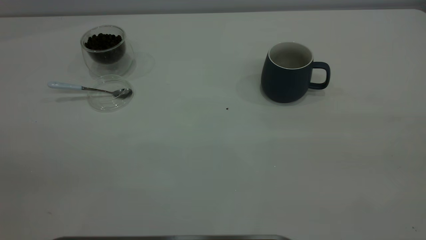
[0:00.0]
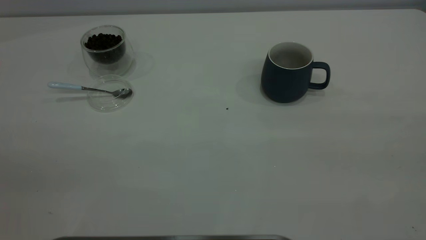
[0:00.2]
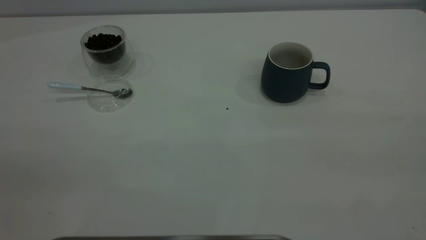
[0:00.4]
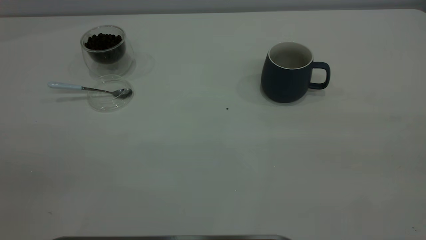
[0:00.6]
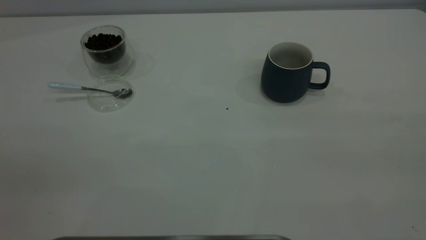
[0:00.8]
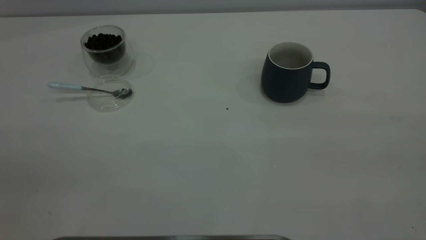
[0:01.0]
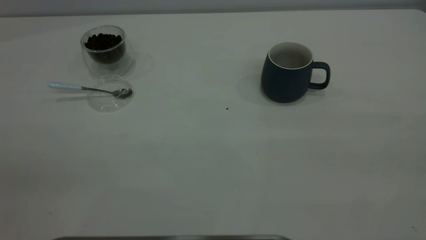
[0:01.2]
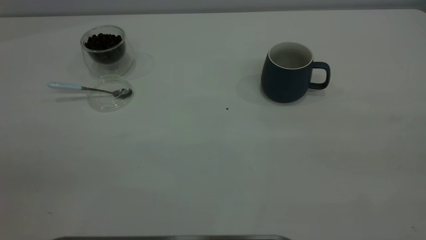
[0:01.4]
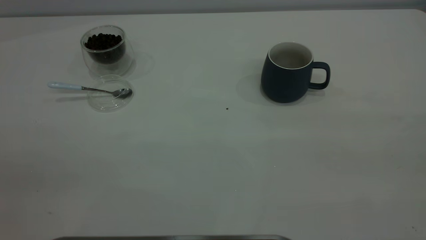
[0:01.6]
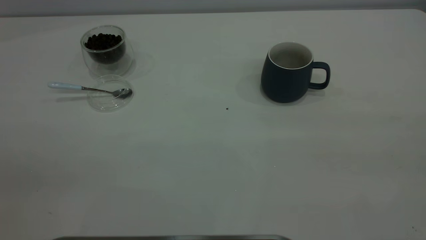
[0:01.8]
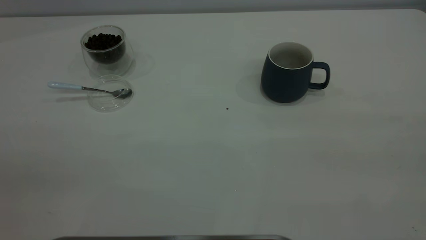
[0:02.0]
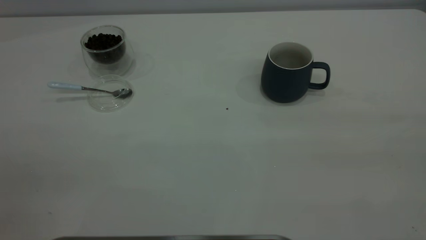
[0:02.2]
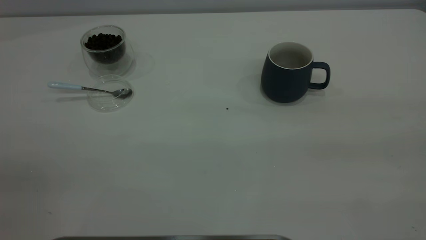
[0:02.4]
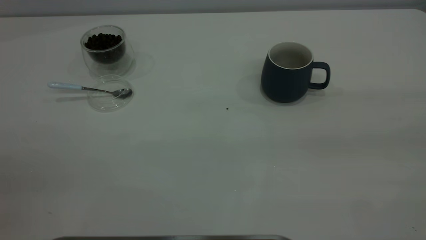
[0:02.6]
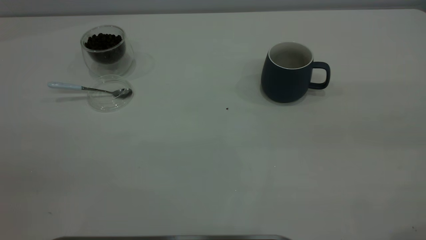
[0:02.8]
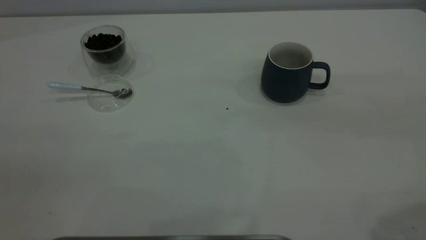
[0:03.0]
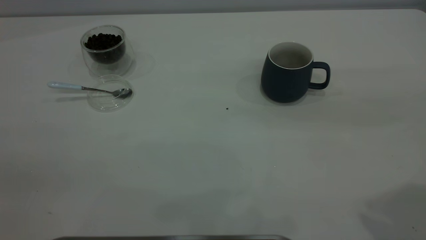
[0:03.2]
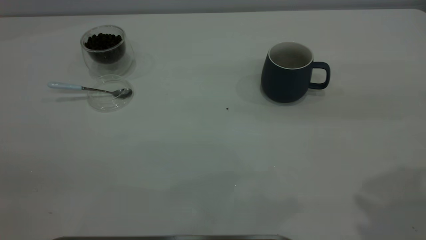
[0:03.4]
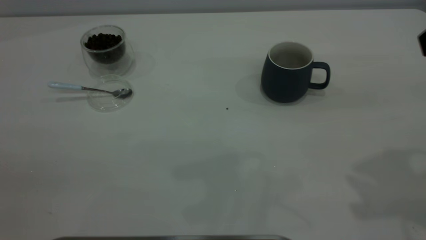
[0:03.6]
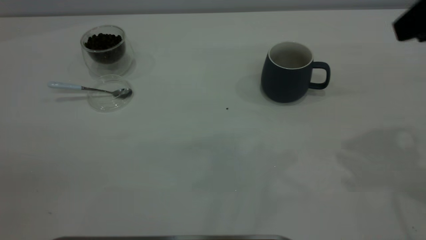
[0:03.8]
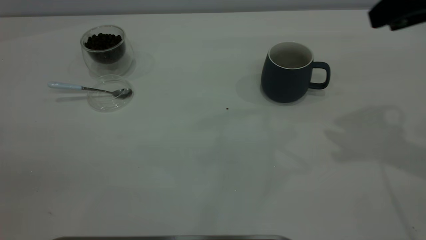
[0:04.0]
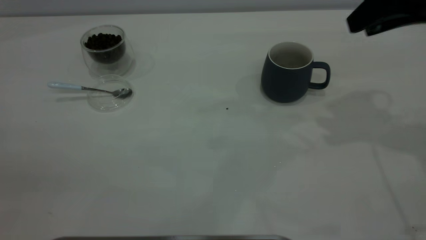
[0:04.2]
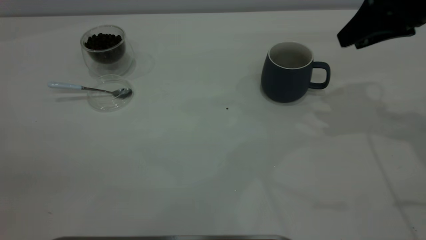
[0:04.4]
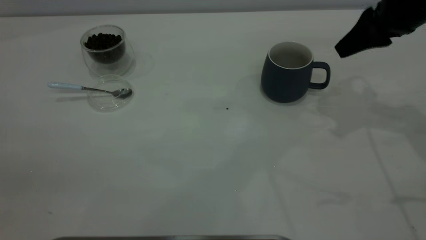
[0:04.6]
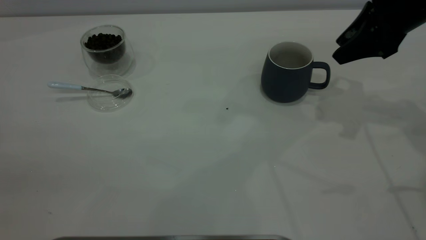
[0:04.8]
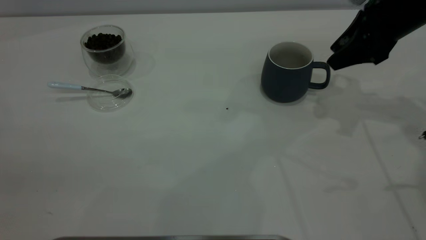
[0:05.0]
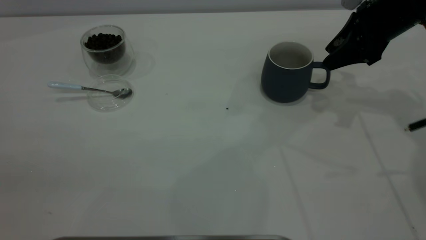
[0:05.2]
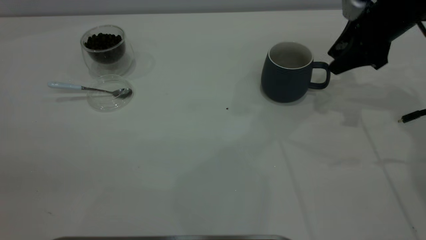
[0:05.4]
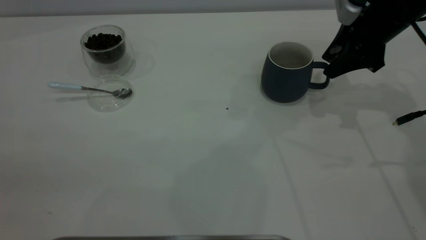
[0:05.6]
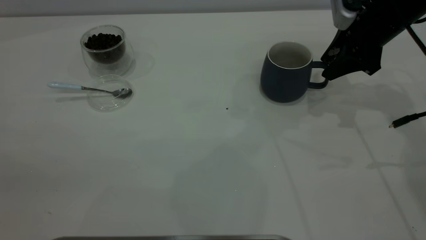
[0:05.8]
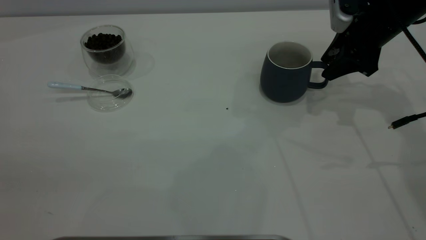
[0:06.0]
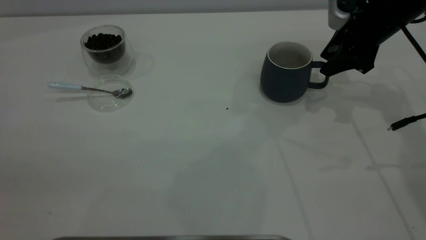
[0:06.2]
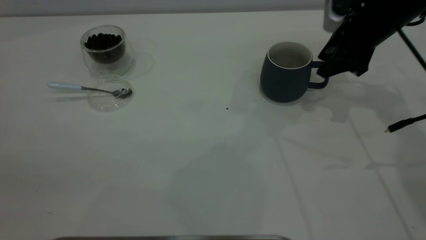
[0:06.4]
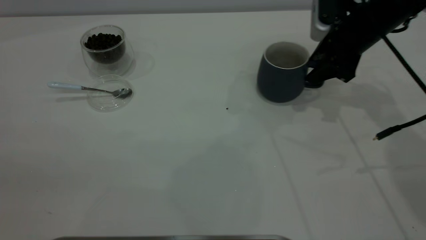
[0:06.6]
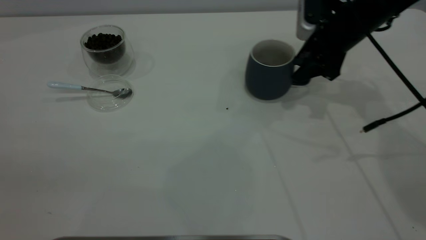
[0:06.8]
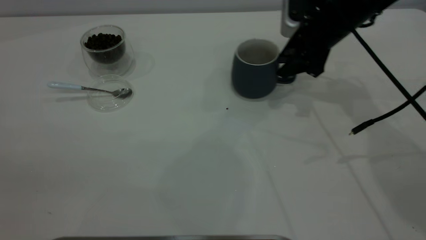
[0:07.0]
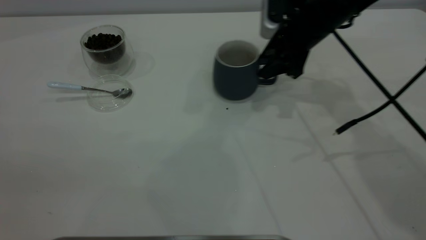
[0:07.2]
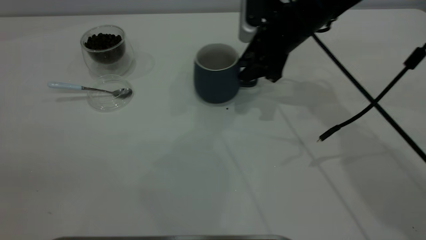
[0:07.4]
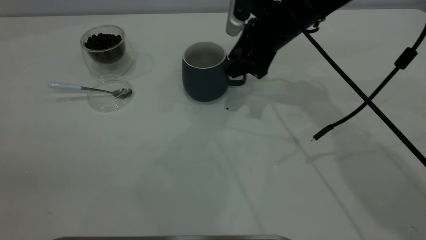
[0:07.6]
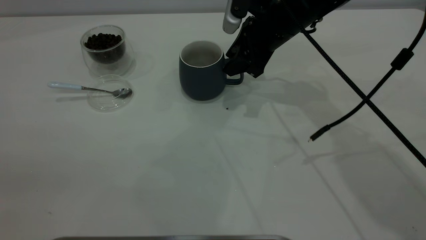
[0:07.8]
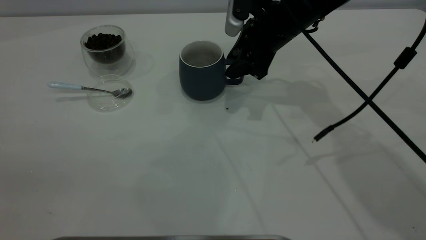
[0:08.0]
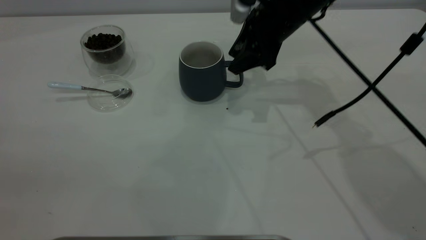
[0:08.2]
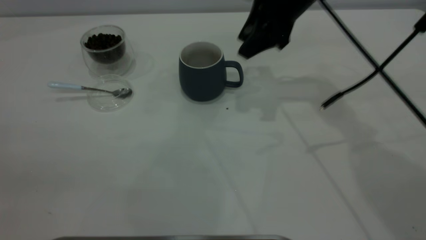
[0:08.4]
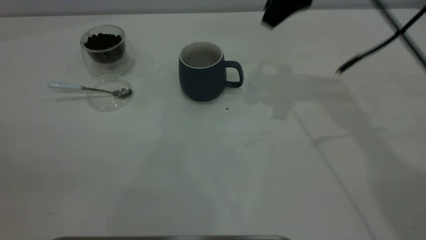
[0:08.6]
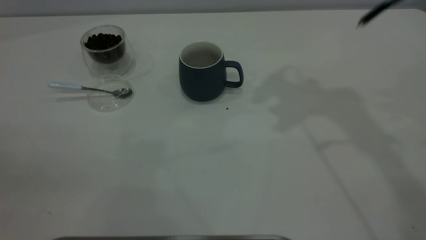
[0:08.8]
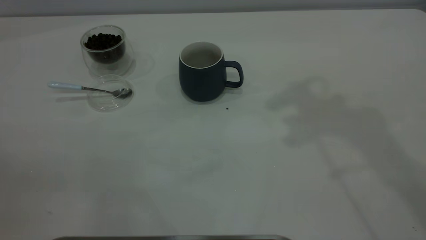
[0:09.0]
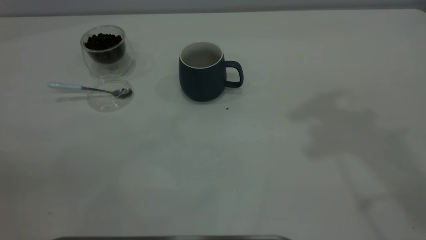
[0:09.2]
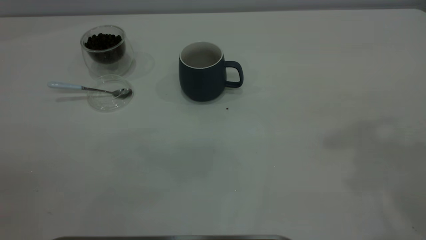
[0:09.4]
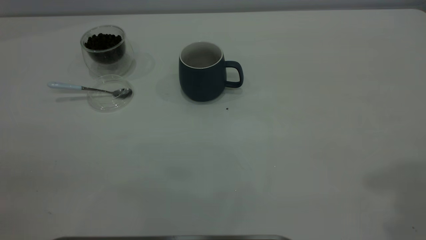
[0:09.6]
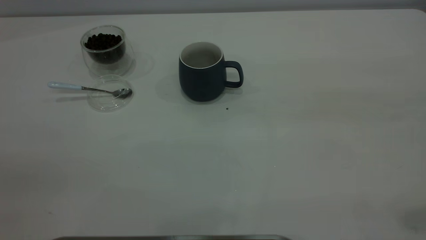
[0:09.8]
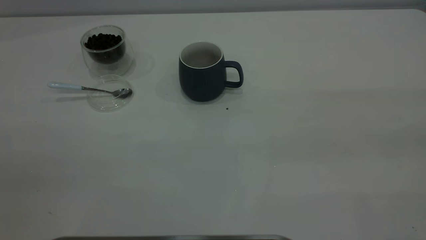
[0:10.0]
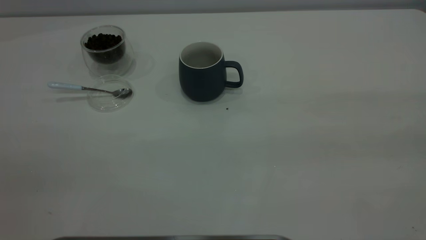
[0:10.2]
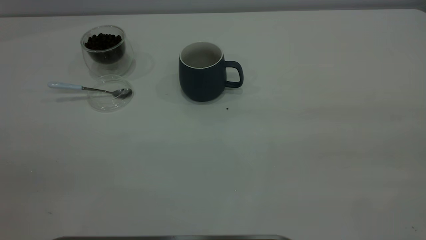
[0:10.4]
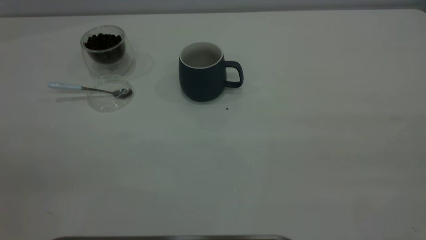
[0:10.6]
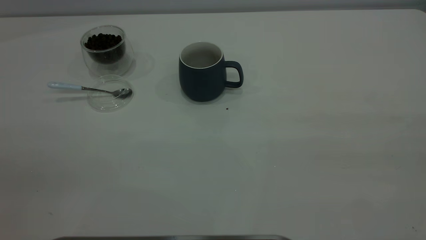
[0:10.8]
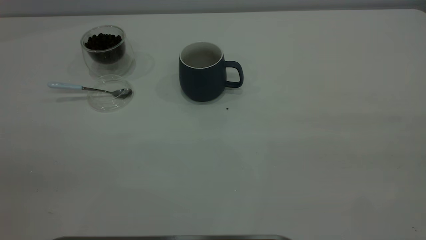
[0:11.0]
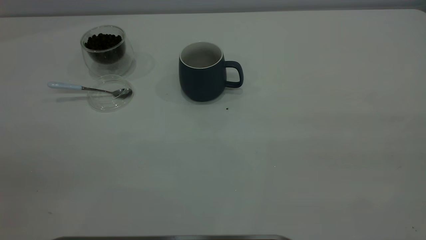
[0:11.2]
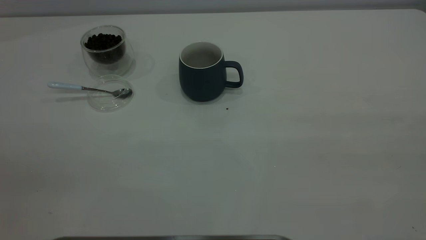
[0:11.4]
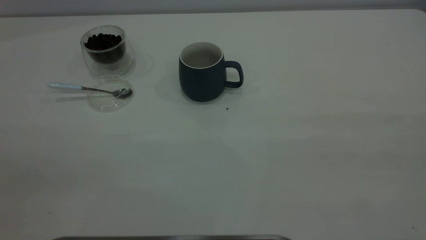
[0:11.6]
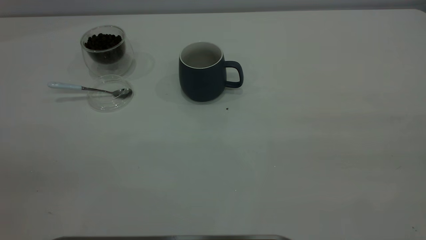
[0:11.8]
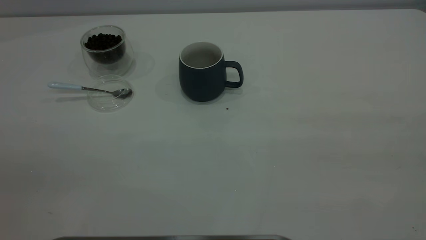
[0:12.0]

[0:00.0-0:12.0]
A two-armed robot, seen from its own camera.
Task of the whole recording: the right gripper place the grey cup in the center of the table, the left gripper take the blue spoon from the cup lid and scoop out the coffee beans from the coffee cup and put them into the grey cup, the left gripper put the spoon back into the cup lid.
Step, 0:00.0 to 0:08.4: Move the cup to the center of view.
0:00.0 to 0:01.6: The two grippers keep their place.
0:03.0 to 0:04.4: The right gripper is displaced forward and downward by roughly 25 cm.
0:04.4 to 0:06.0: The right gripper heads downward and forward, covering some 10 cm.
0:06.0 to 0:07.6: The right gripper moves to the left, approximately 15 cm.
0:07.6 to 0:09.0: The right gripper moves upward, about 30 cm.

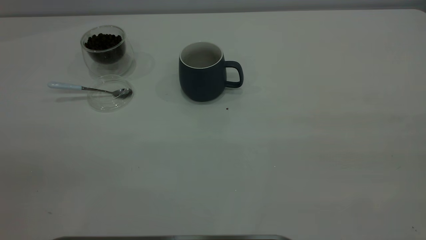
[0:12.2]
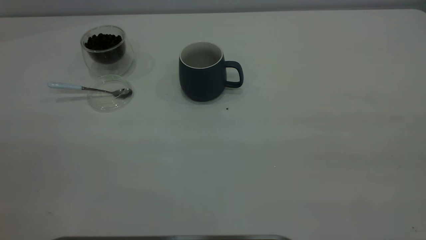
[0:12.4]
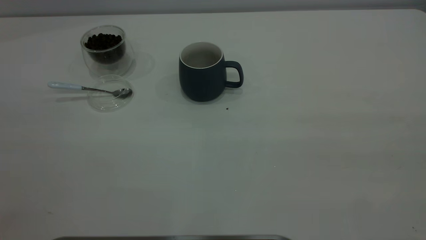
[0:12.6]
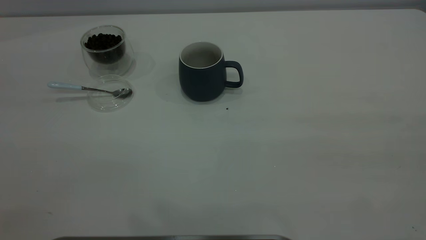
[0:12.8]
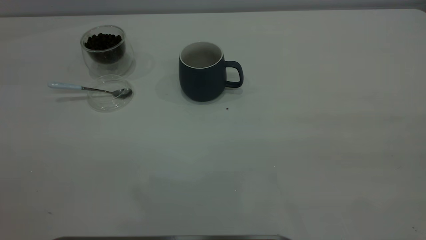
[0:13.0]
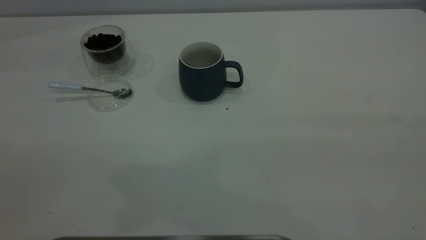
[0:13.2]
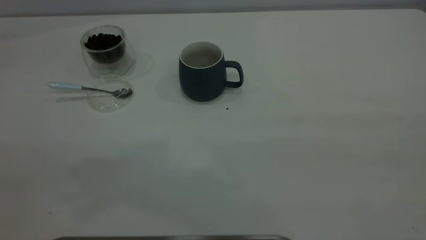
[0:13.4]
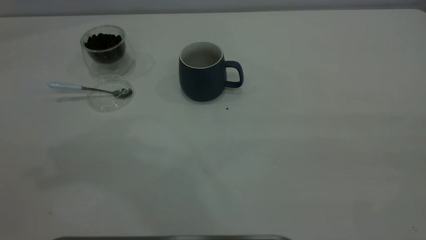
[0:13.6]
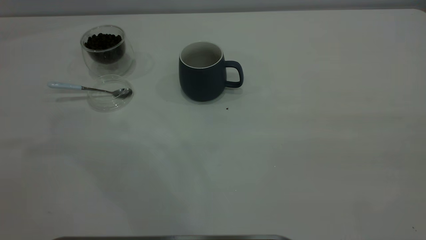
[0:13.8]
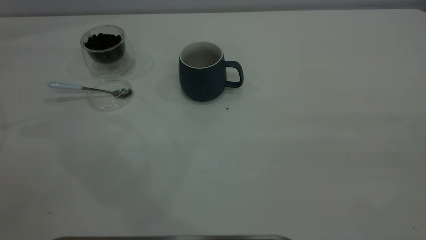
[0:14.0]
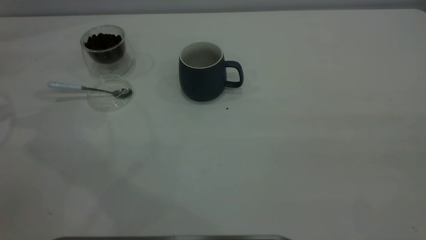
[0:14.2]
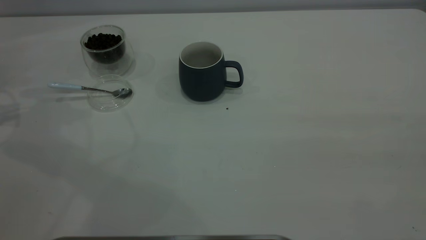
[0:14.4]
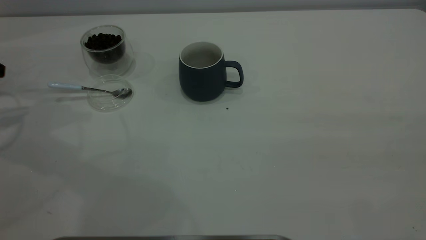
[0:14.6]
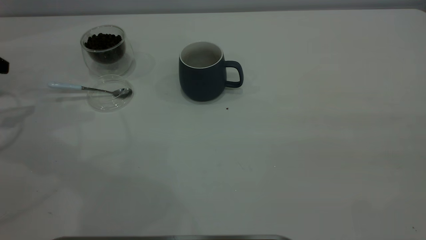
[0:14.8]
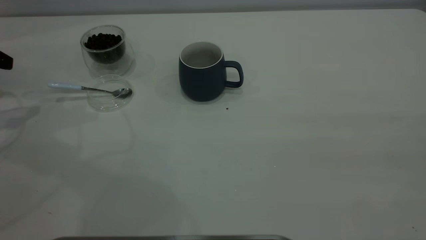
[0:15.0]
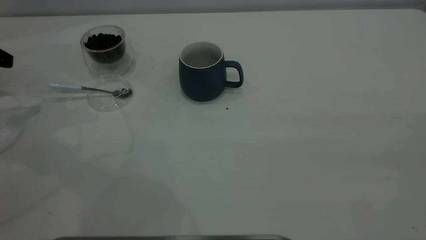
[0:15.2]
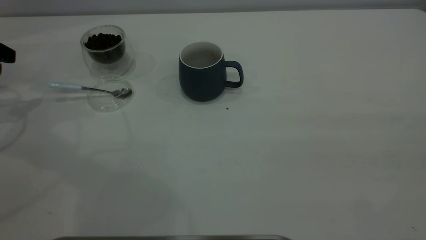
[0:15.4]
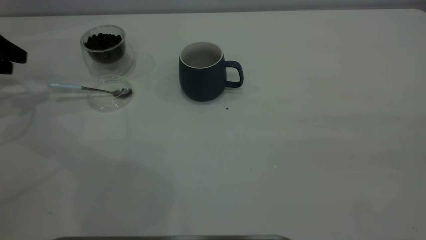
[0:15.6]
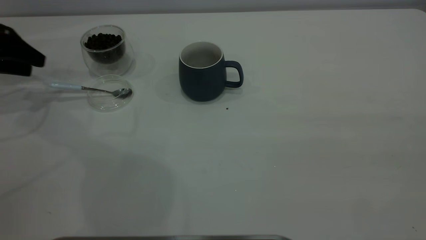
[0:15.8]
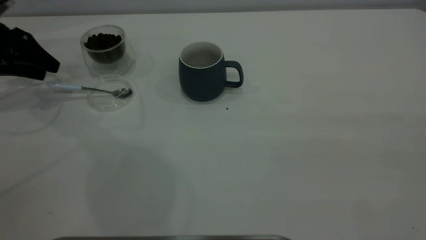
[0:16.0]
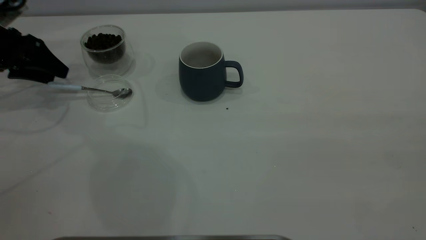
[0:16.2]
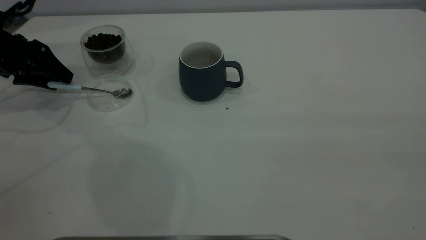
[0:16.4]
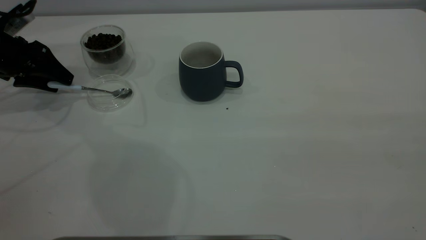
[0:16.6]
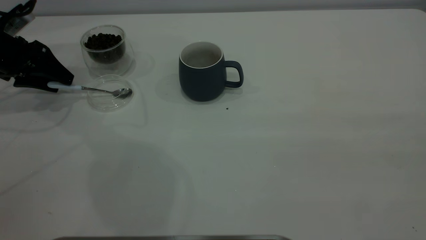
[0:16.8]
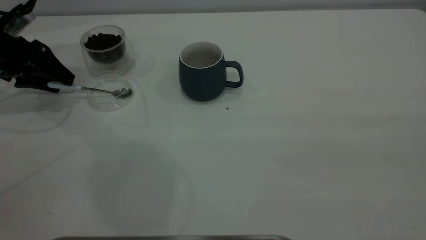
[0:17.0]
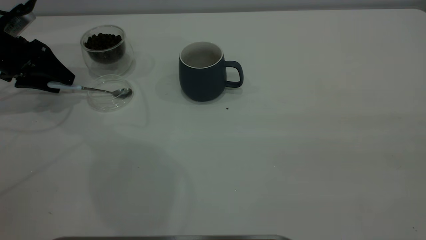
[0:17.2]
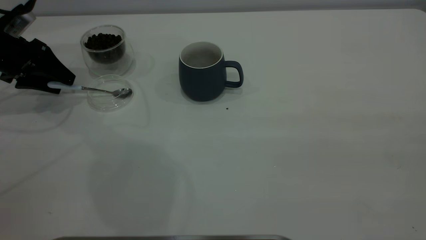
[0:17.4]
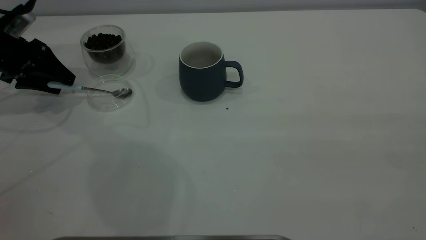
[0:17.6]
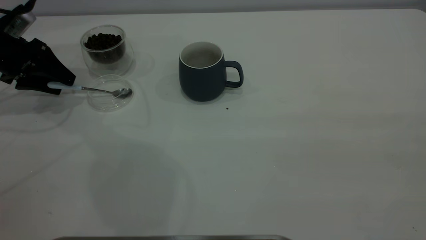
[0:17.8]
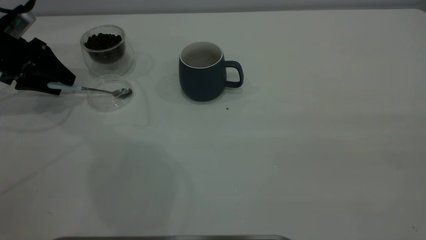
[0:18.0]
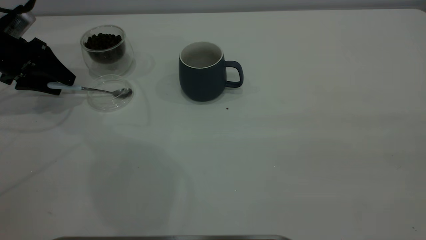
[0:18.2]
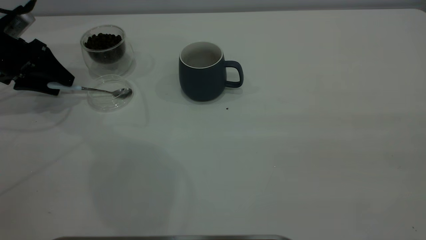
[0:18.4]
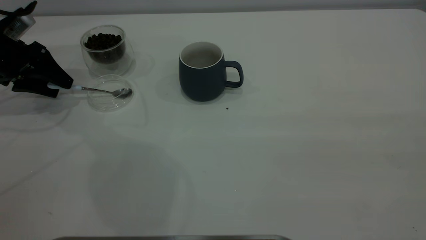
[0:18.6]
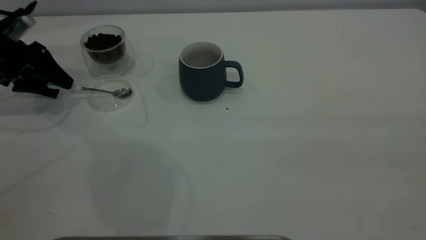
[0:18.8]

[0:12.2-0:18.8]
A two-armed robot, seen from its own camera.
Task of the whole recording: the right gripper place the grey cup in the center of the table, the left gripper take the blue spoon from the cup lid and scoop out the coffee beans from the coffee cup and put them into the grey cup, the left gripper put the spoon back into the cup lid.
0:15.4 to 0:17.2: The left gripper travels to the right and forward by roughly 10 cm.
0:17.2 to 0:18.8: Both grippers stay about where they are.
